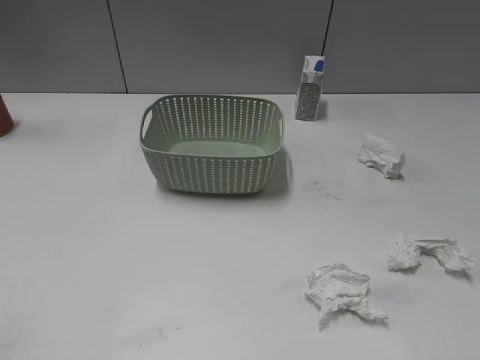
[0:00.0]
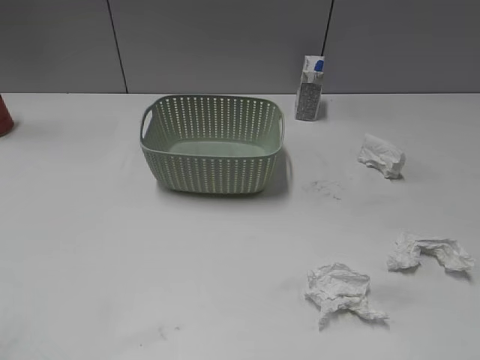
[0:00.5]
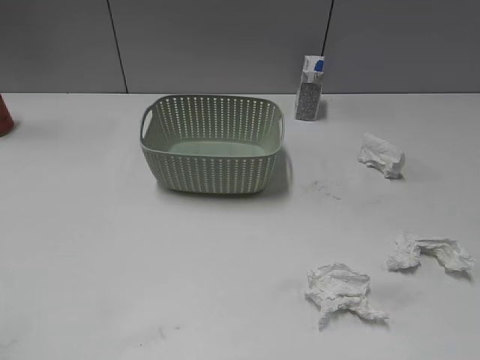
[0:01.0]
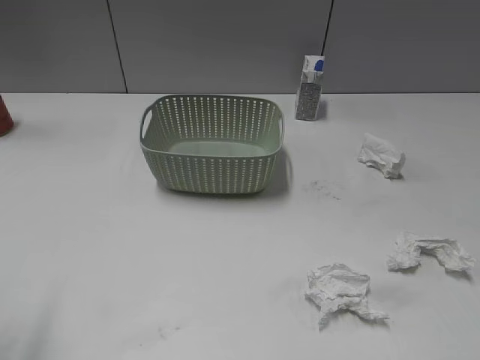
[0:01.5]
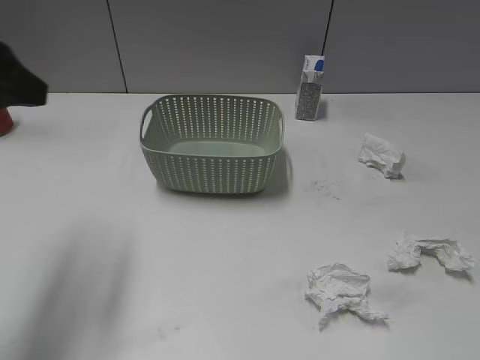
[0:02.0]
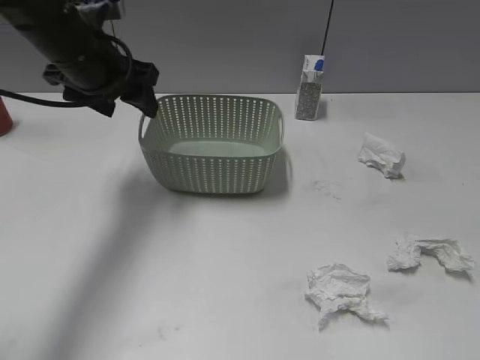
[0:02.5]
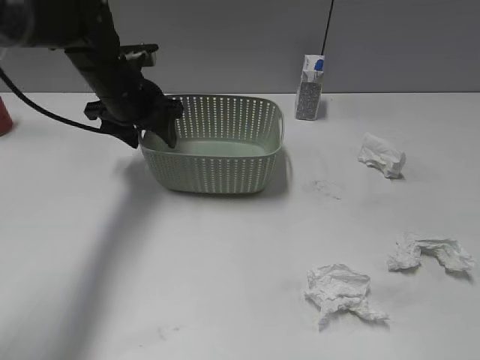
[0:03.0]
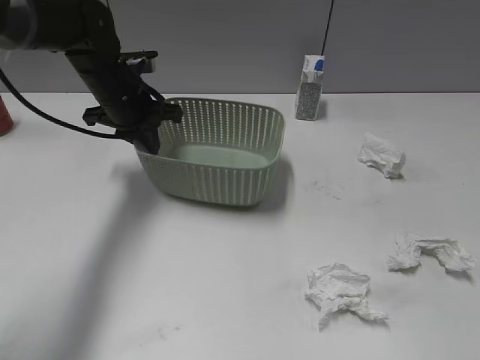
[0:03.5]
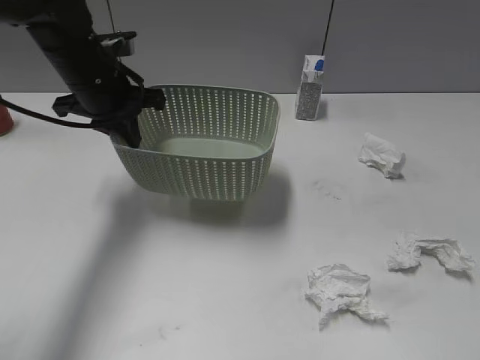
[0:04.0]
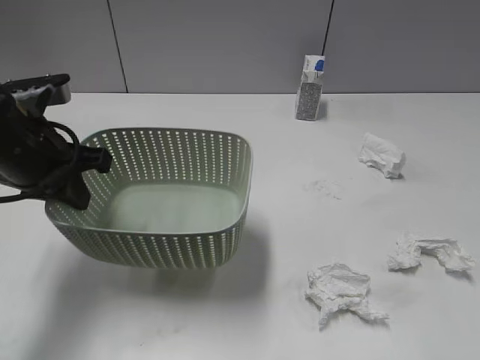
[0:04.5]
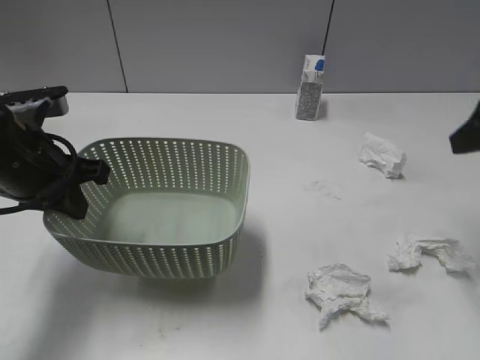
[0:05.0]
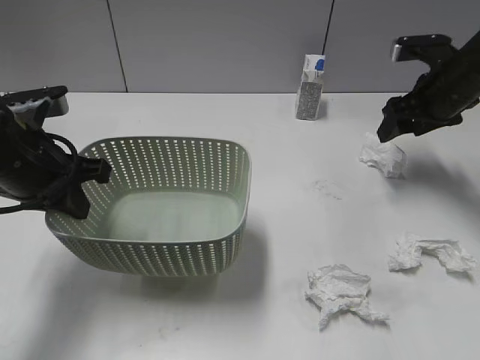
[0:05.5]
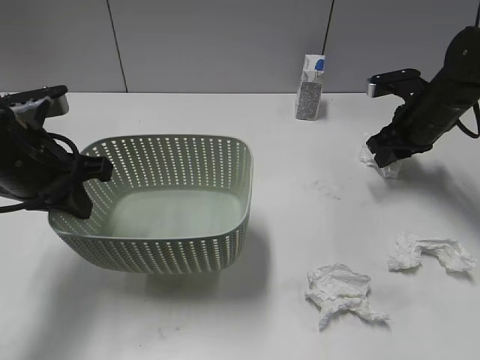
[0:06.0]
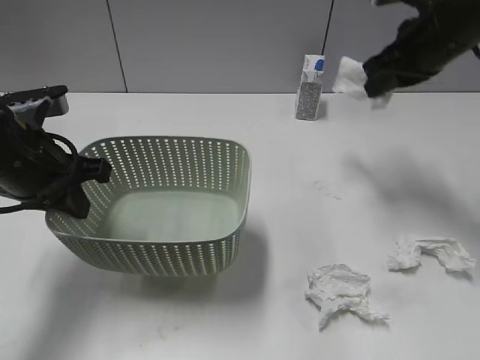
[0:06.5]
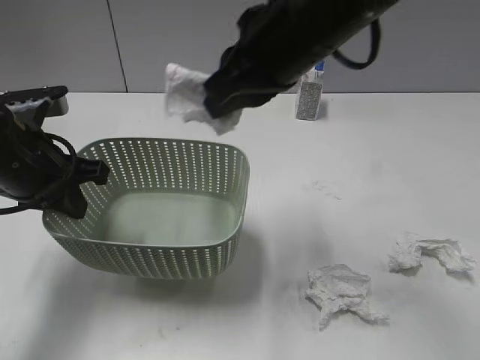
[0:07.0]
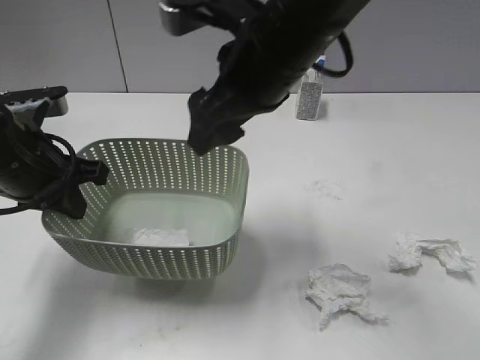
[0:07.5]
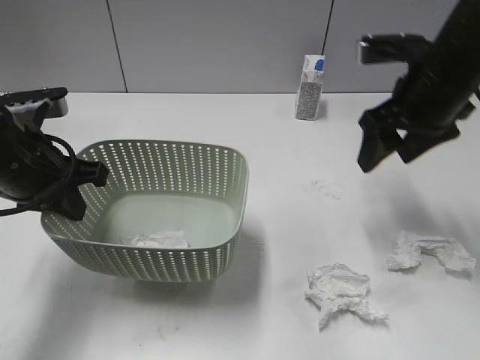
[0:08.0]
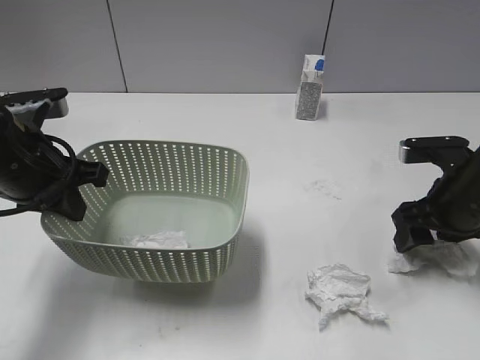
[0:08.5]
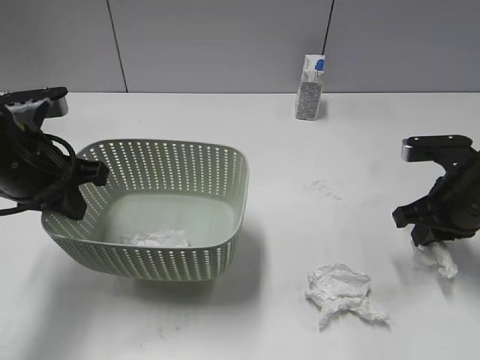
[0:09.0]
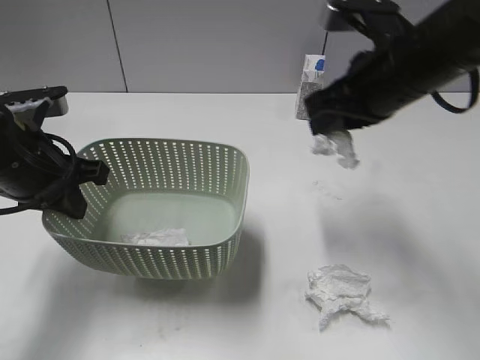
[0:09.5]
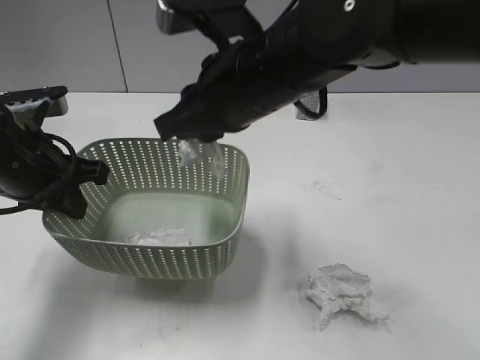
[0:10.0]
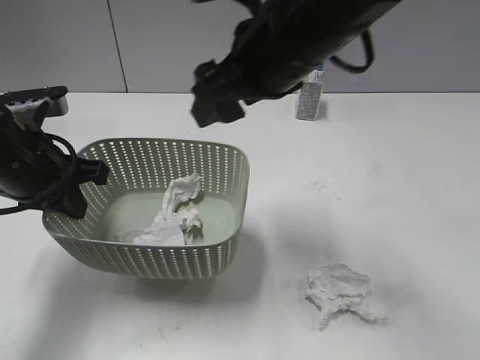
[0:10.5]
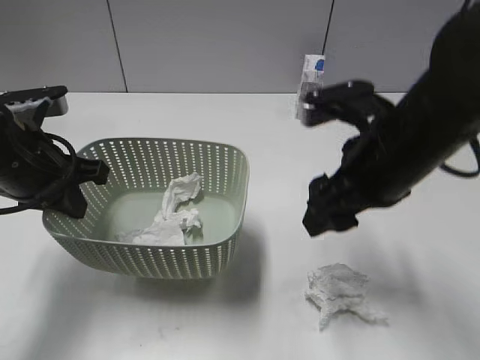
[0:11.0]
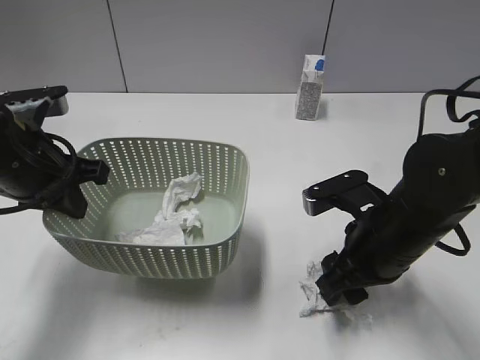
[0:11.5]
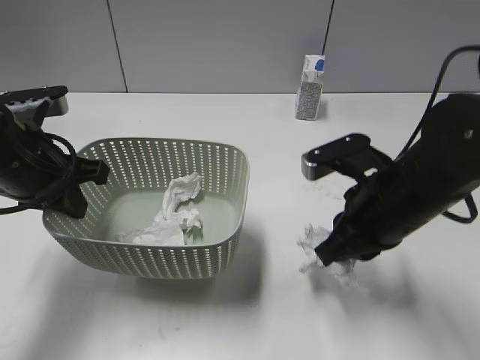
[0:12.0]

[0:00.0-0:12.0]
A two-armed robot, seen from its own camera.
Step, 0:02.0 to 0:03.5: Grasp the basket with left gripper.
Step, 0:04.5 to 0:06.0: Grasp the waste paper with right gripper.
Step, 0:06.5 to 0:07.5: Place the waste paper in the basket with right gripper.
Step, 0:08.0 to 0:09.0: Grasp the waste paper with right gripper.
Step, 0:09.5 to 0:10.0: Place the waste paper in the basket with right gripper.
Step, 0:10.5 to 0:11.5: Grasp the waste paper with right gripper.
0:02.0 to 0:04.0: The left gripper is displaced forward, downward and to the right by some 20 cm, and closes its fingers.
0:04.0 to 0:06.0: The left gripper moves backward, about 10 cm, while the right gripper shifts about 40 cm forward, and closes its fingers.
0:06.0 to 0:08.0: The right gripper travels upward and backward by some 15 cm, moves some 20 cm to the left and comes back, and opens up.
0:08.0 to 0:10.0: The right gripper shifts roughly 20 cm to the left, and closes its fingers.
0:10.0 to 0:12.0: The right gripper swings up and down, approximately 15 cm each way, with 2 reversals, and opens and closes again.

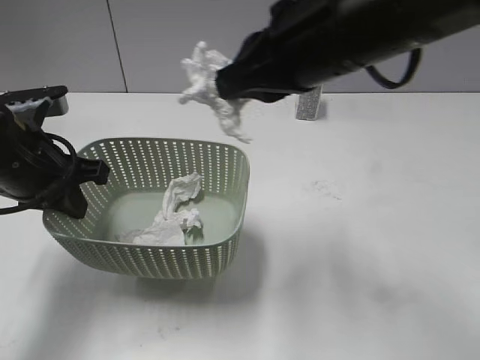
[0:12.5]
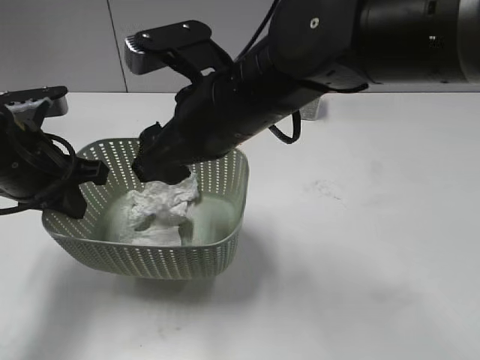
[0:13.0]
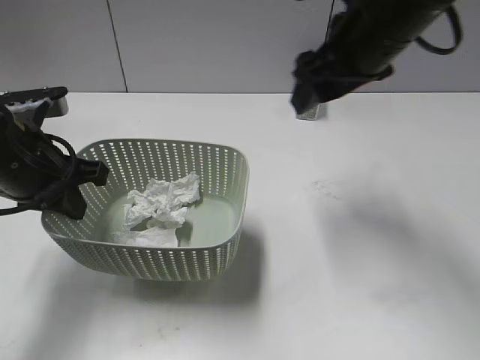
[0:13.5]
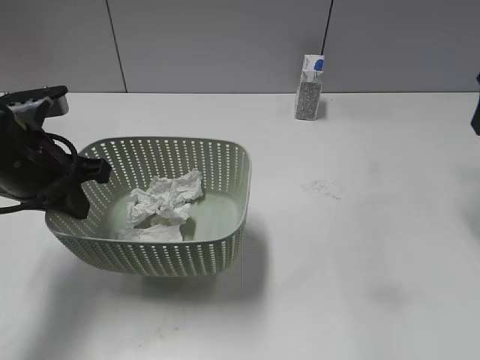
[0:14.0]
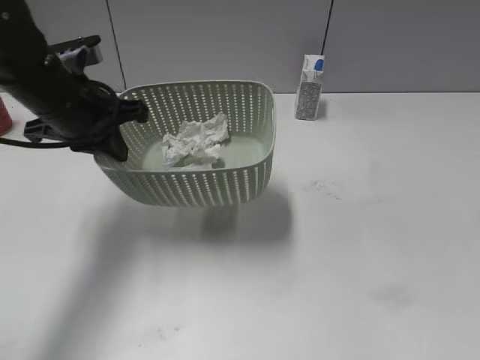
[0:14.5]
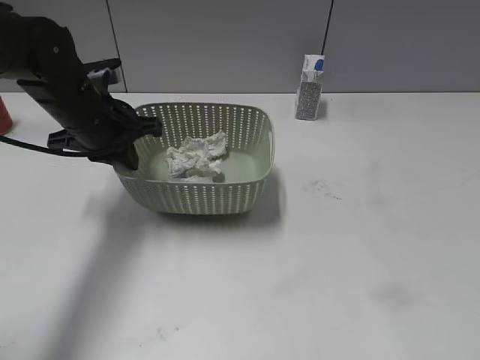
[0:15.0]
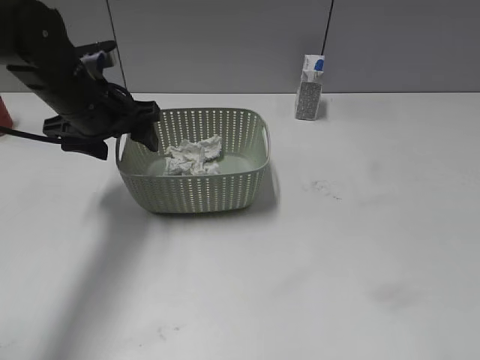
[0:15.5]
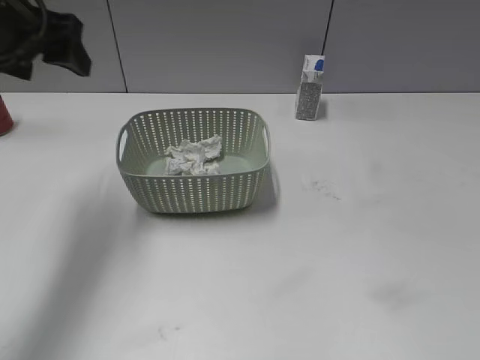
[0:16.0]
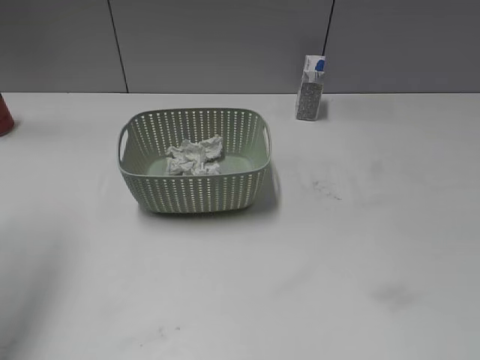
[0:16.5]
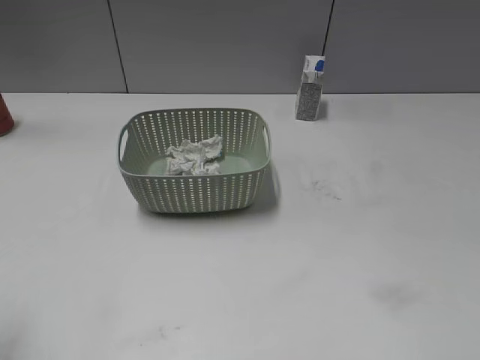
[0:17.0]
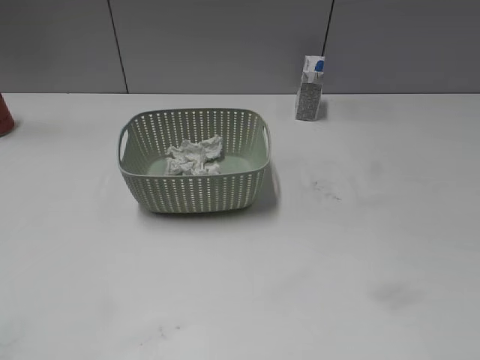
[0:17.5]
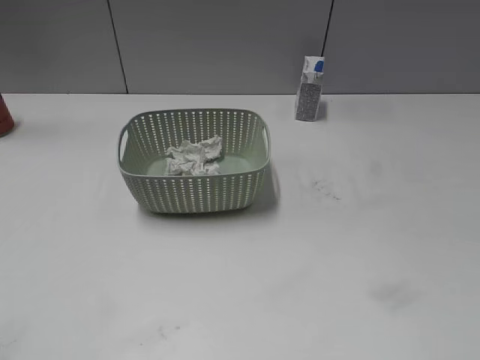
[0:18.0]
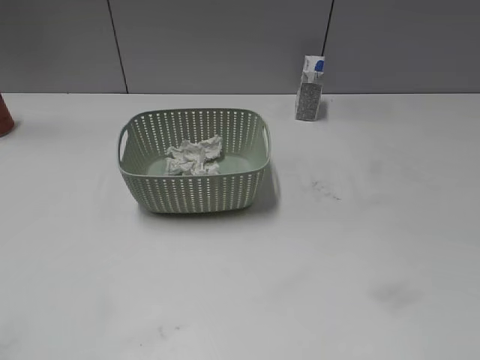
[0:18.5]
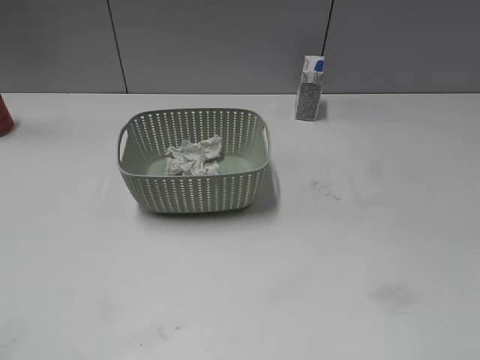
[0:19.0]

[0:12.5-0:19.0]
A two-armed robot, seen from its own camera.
Step, 0:13.5 to 0:15.5: Place the basket on the table with left gripper.
0:12.5 to 0:14.5: The right gripper is displaced to the right by roughly 25 cm, and opens its fingers. Meanwhile the left gripper travels forward by about 5 cm.
0:14.5 to 0:17.0: The right gripper heads backward and downward, covering approximately 30 cm, while the left gripper heads backward, to the left and upward, covering about 30 cm, and opens up.
